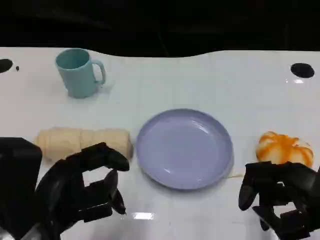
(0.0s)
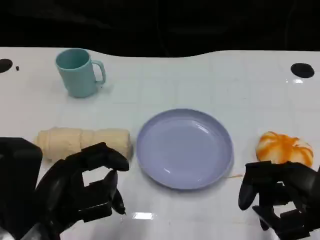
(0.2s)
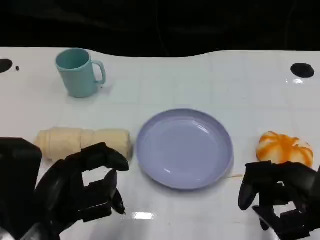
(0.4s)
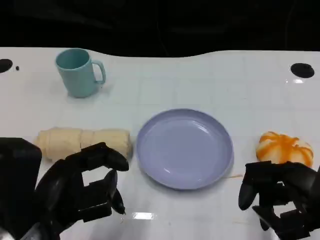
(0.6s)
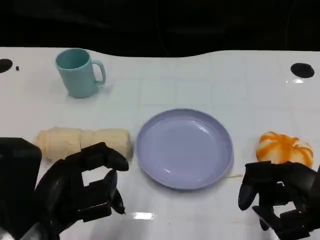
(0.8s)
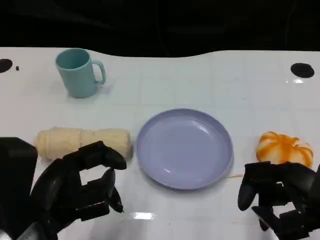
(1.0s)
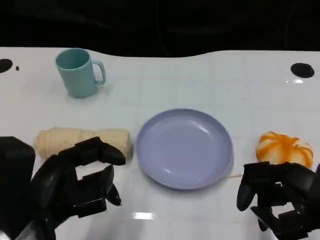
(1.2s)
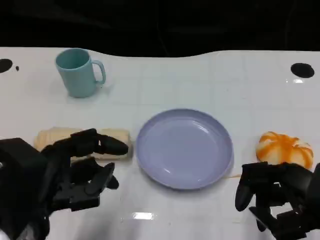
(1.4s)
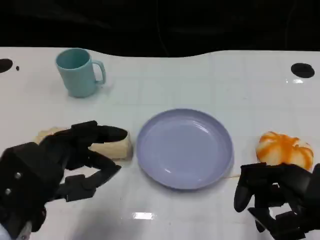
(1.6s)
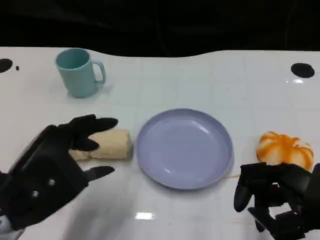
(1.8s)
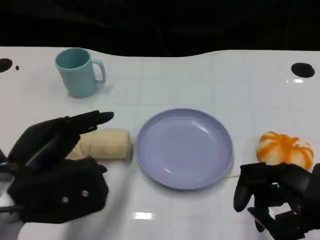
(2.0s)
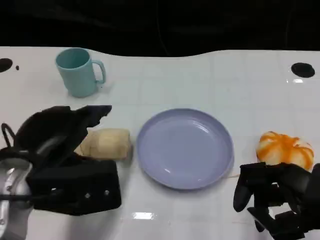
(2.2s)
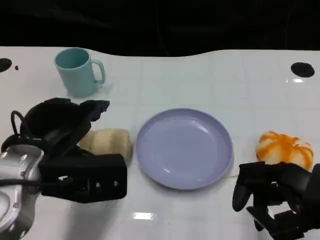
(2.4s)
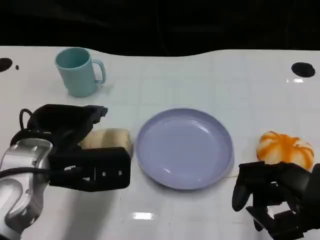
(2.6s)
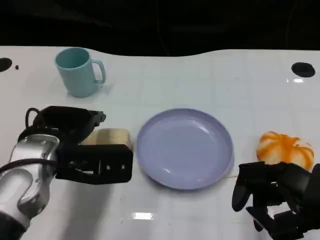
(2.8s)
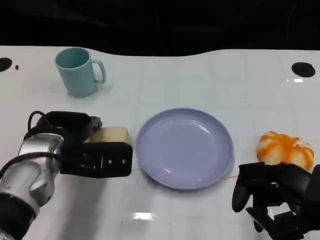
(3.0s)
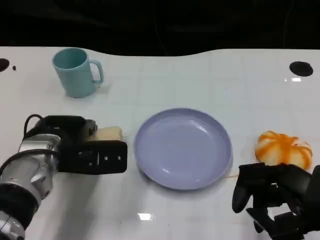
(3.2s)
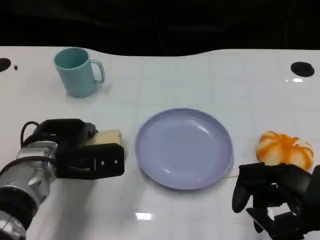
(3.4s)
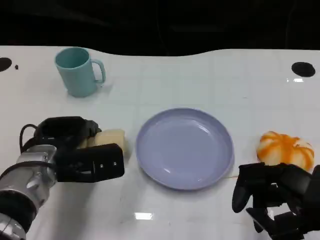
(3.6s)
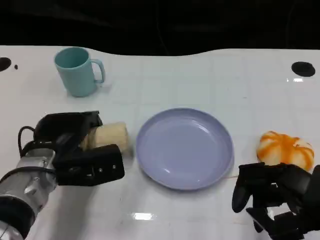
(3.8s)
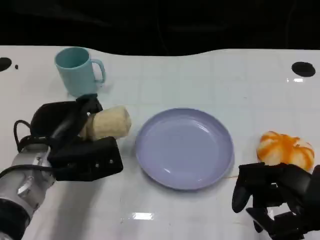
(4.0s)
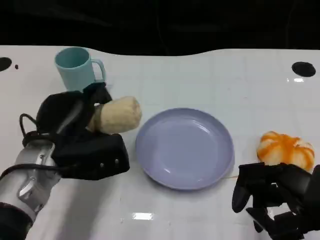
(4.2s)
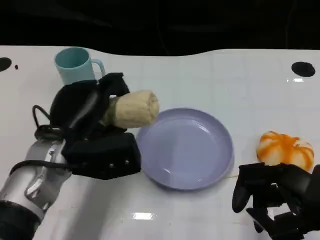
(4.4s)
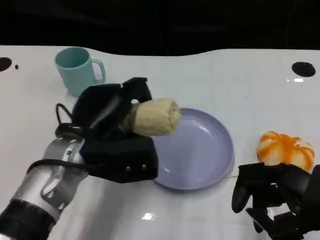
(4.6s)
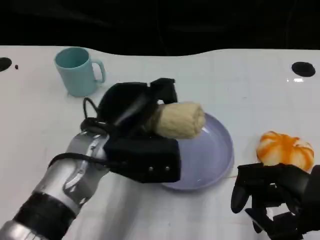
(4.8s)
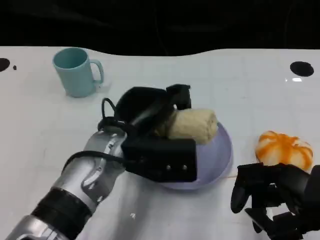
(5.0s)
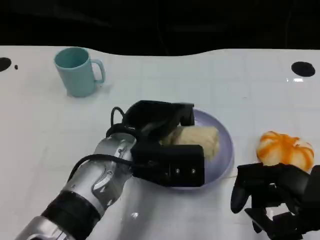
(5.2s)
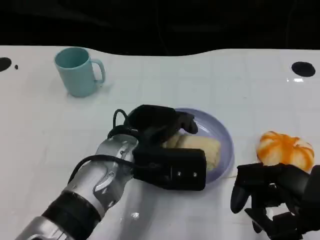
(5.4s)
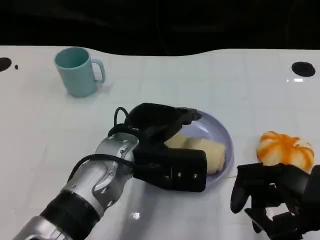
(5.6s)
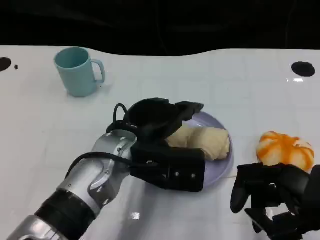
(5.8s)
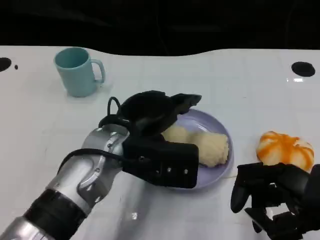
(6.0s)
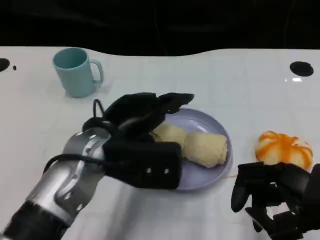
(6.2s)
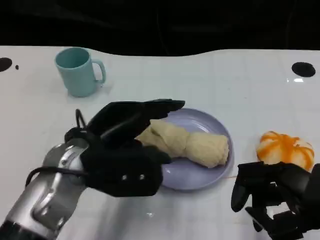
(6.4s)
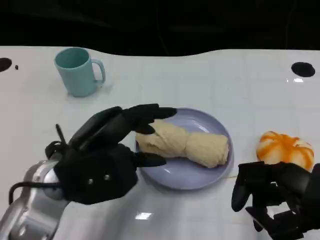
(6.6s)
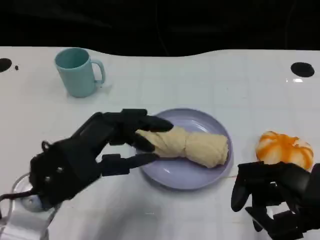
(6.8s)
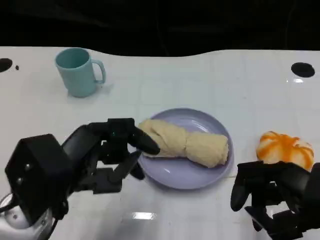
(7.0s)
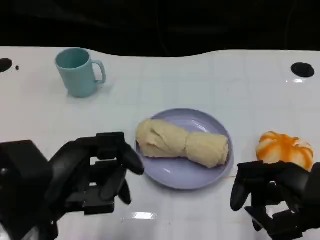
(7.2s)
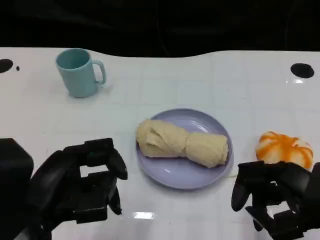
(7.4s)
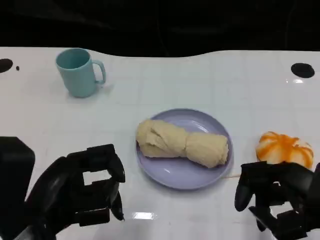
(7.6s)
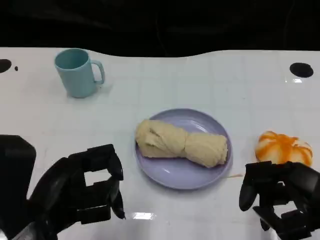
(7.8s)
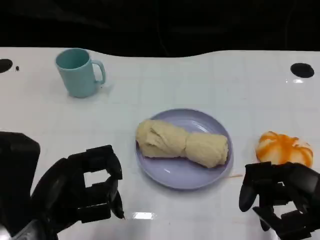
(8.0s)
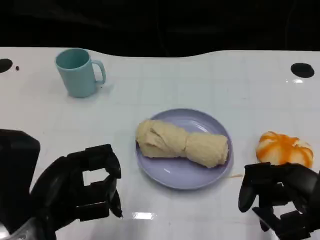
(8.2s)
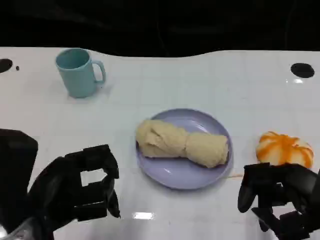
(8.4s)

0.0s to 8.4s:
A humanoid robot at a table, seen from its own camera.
Task of the whole recording: Grasp the towel on the left side of the plate with the left hand and place it into the plate.
1.4s to 2.8s: The left hand travels forward by some 10 cm.
4.2s to 5.6s: The left hand moves to the right, roughly 10 cm.
5.6s to 7.0s: The left hand travels to the left and backward by roughly 15 cm.

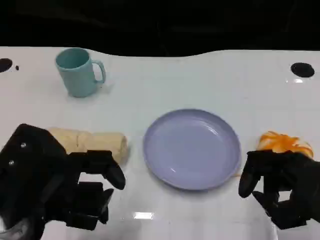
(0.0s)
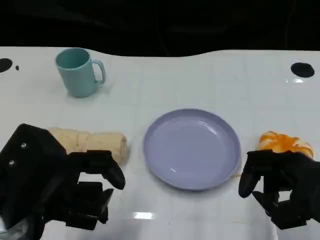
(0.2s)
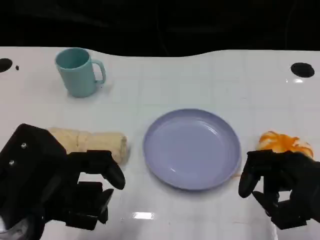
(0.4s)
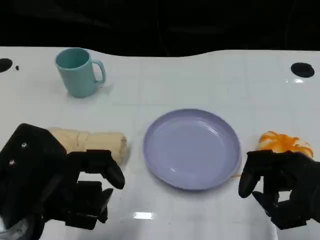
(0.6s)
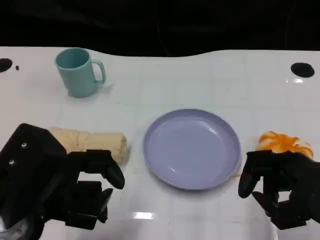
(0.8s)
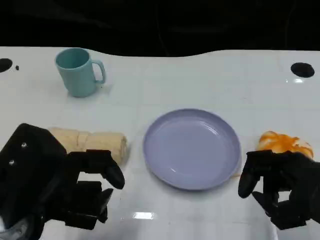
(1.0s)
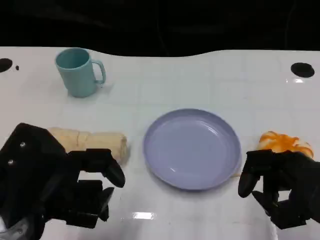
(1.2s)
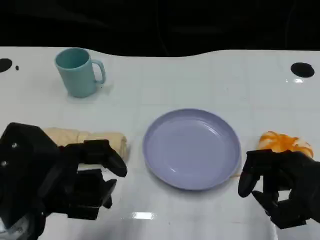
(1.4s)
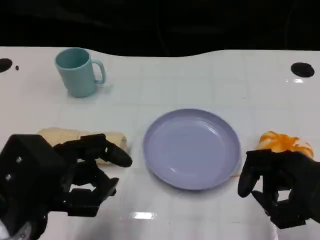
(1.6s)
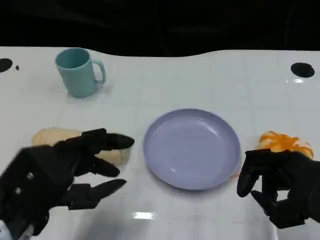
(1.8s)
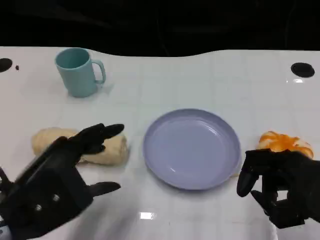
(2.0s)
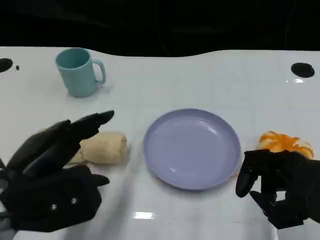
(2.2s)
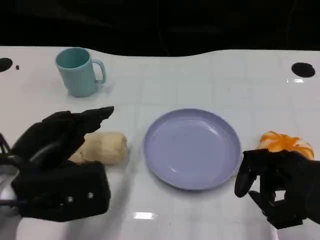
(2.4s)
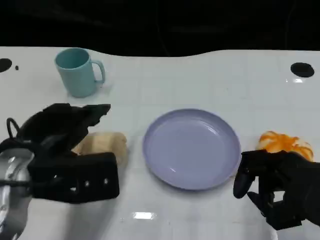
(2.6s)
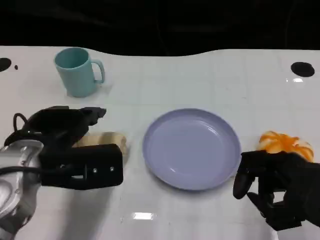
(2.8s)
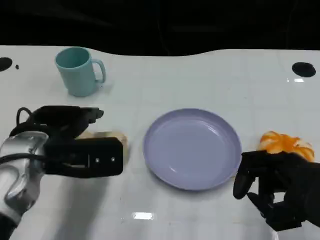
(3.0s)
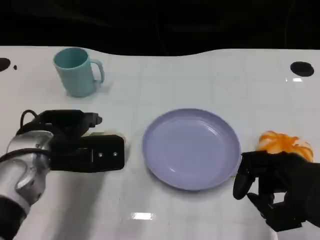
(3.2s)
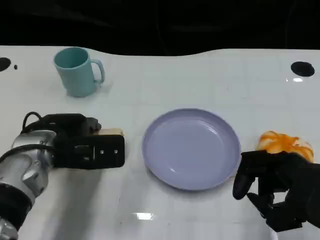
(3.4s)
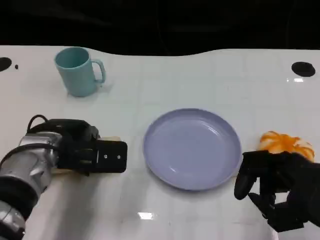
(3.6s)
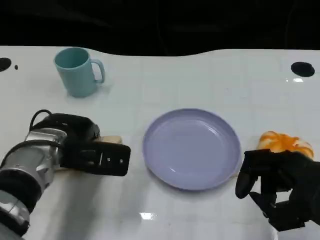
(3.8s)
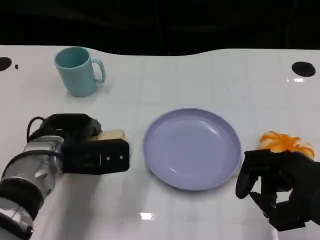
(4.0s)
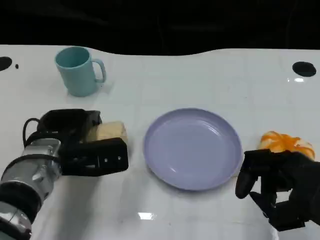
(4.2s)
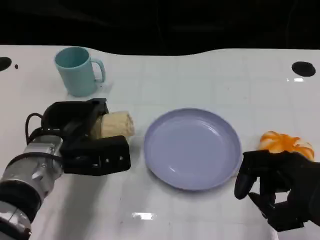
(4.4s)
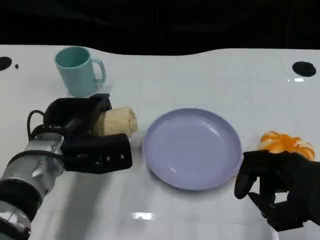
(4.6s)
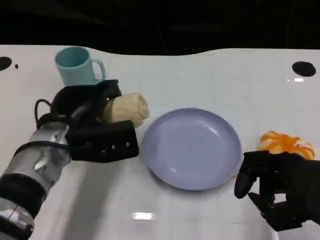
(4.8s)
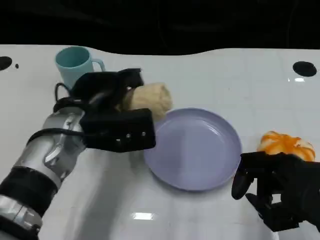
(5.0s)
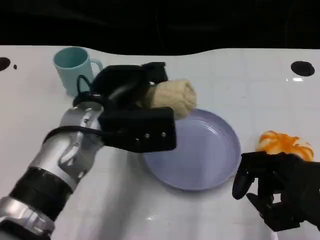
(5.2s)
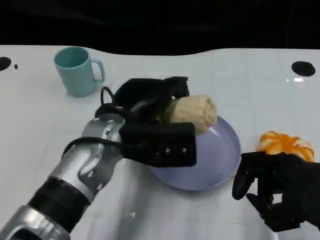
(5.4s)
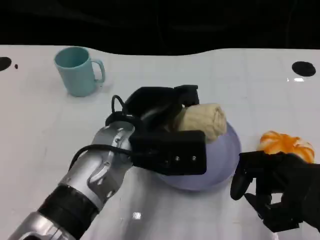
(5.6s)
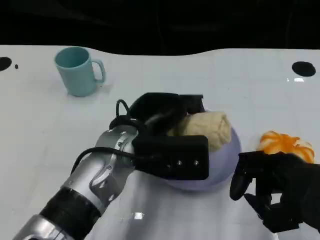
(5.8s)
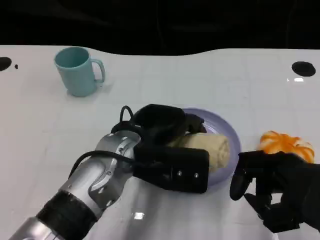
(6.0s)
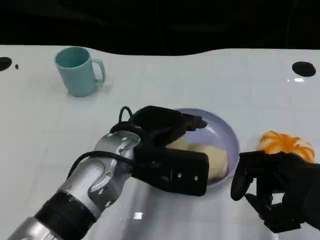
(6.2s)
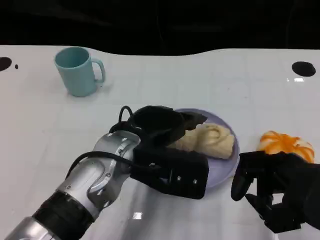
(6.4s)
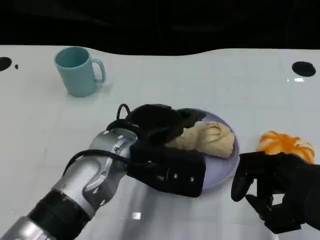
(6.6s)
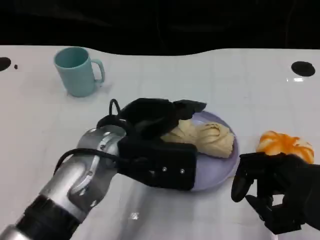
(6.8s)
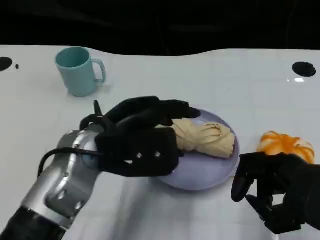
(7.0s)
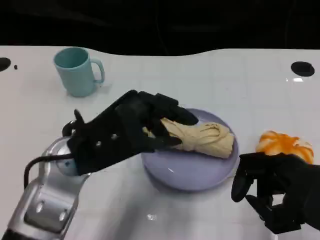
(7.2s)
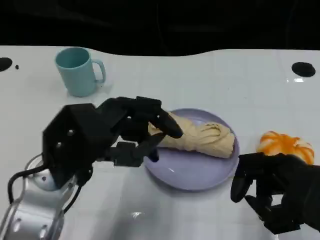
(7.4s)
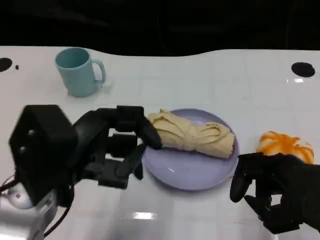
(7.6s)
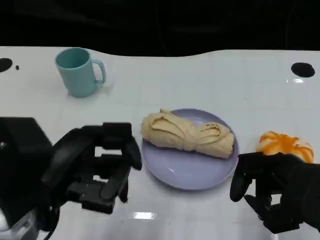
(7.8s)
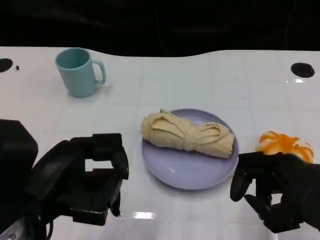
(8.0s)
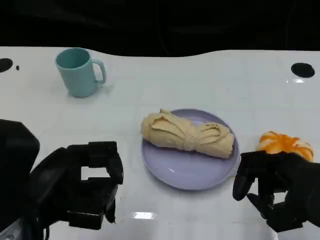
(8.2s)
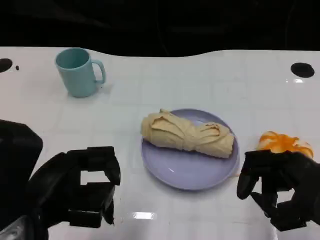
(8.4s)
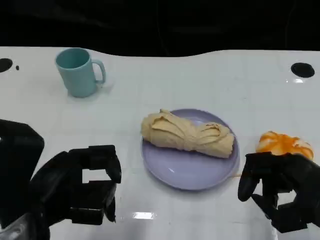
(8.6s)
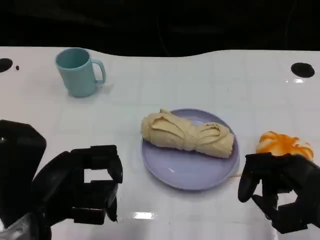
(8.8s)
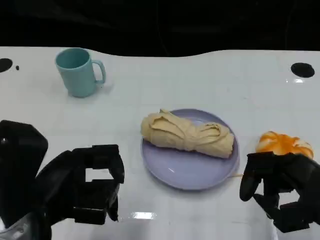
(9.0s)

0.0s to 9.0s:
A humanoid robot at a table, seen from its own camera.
Task of the whole recording: Grasp the towel on the left side of the plate with the left hand and place it into the plate.
0.0s to 1.6s: The hands make only small movements.
1.6s to 3.0s: The left hand heads forward, covering approximately 10 cm.
3.0s to 4.4s: The left hand ends up approximately 5 cm from where it was.
4.4s to 6.0s: The left hand heads to the right and upward, covering approximately 10 cm.
6.0s to 7.6s: The left hand heads to the left and backward, covering roughly 15 cm.
